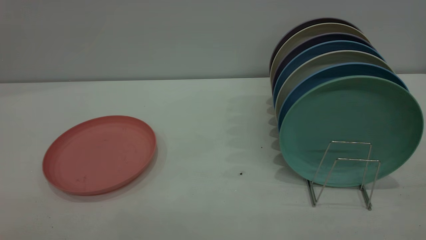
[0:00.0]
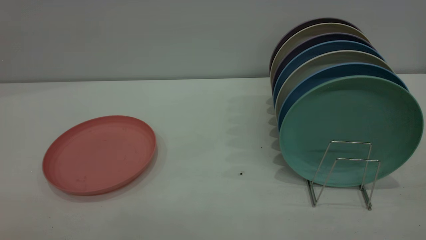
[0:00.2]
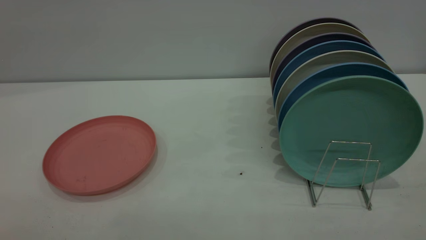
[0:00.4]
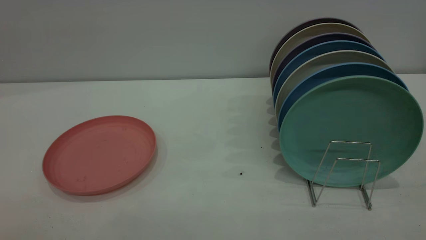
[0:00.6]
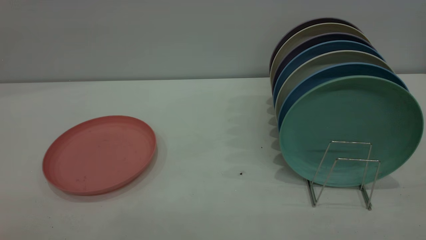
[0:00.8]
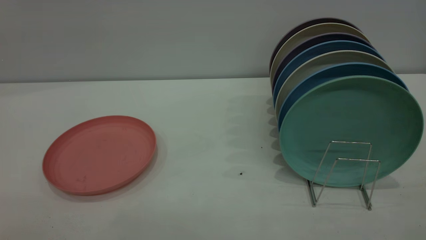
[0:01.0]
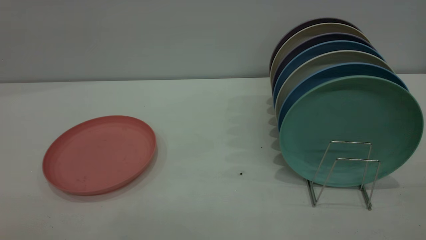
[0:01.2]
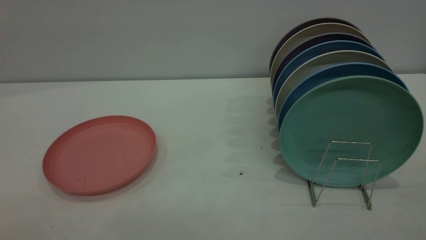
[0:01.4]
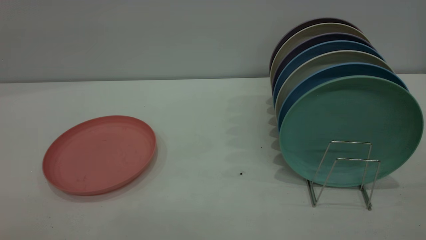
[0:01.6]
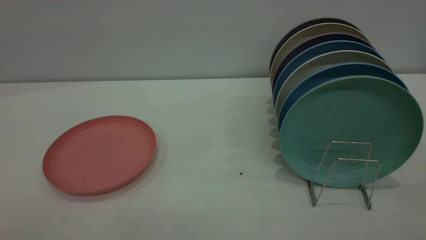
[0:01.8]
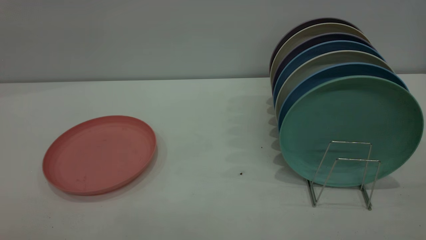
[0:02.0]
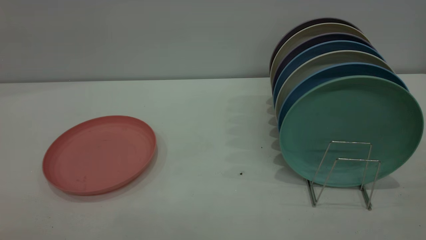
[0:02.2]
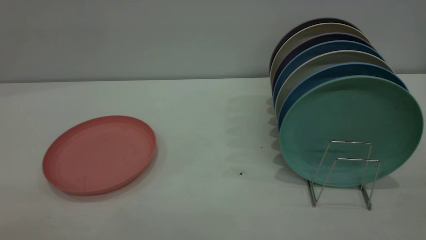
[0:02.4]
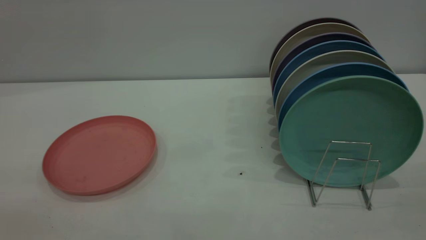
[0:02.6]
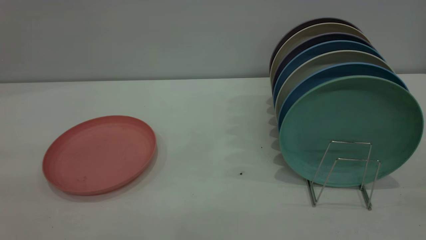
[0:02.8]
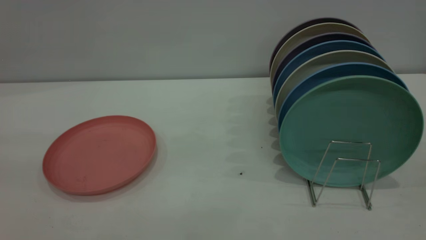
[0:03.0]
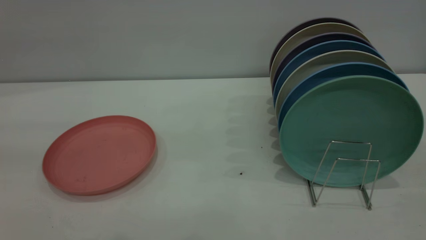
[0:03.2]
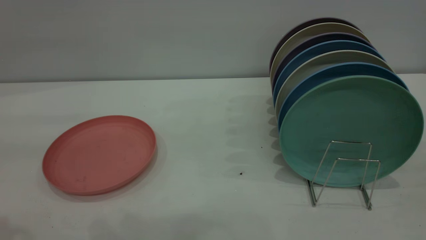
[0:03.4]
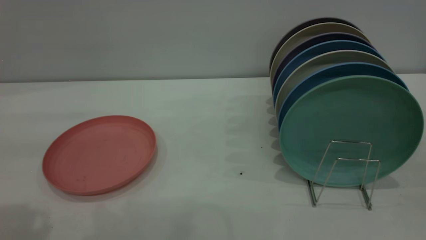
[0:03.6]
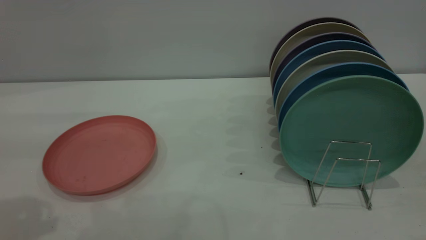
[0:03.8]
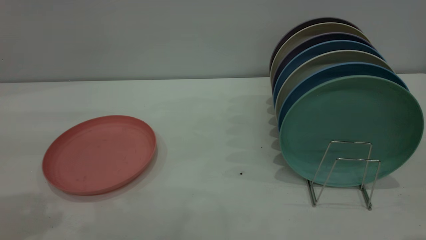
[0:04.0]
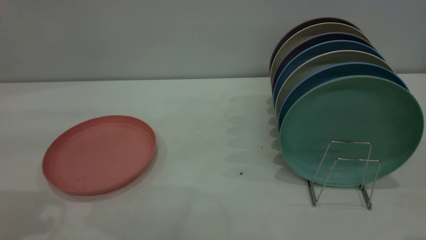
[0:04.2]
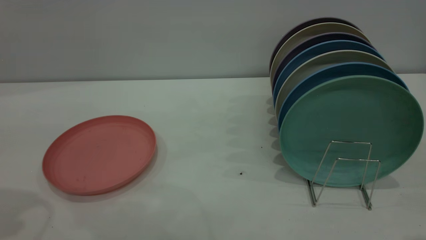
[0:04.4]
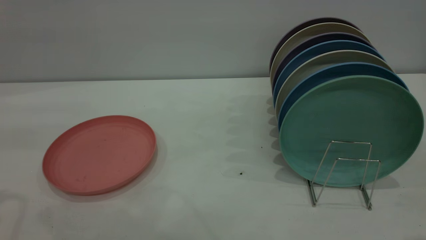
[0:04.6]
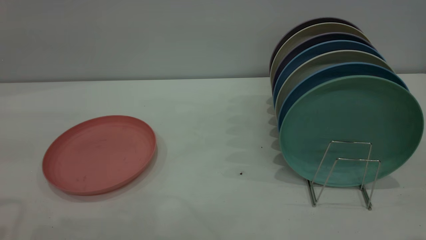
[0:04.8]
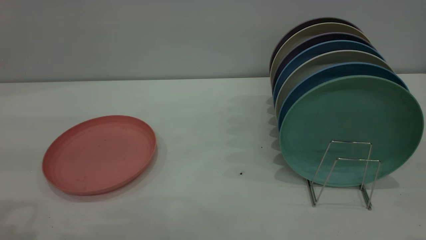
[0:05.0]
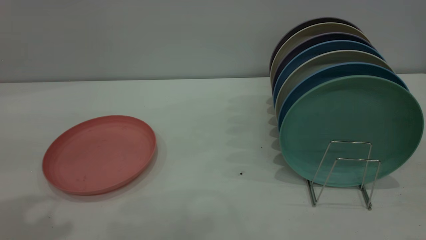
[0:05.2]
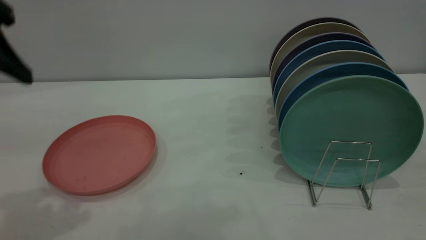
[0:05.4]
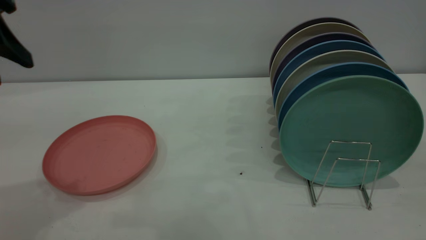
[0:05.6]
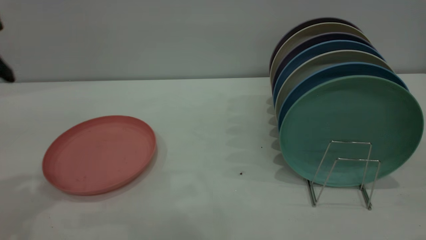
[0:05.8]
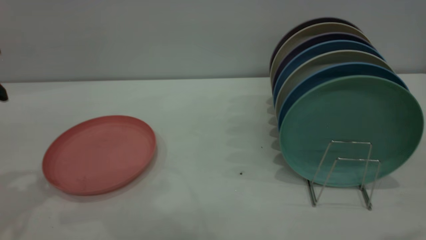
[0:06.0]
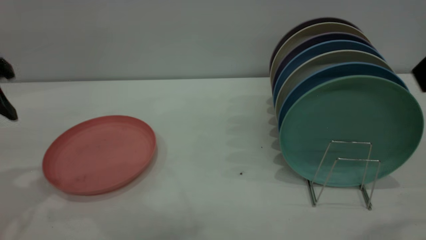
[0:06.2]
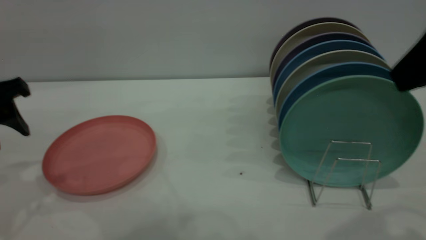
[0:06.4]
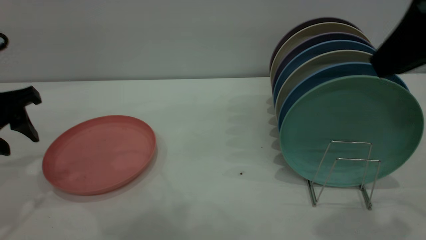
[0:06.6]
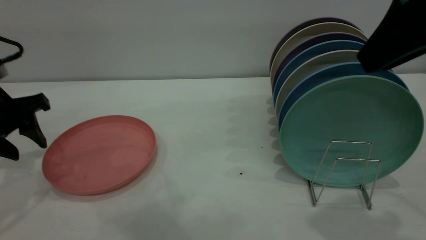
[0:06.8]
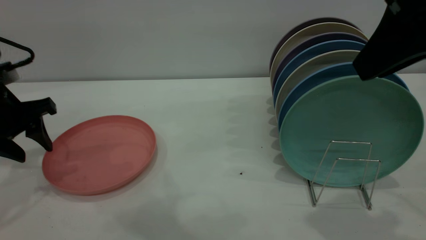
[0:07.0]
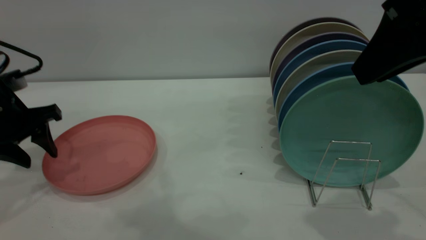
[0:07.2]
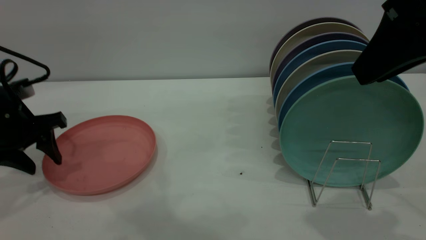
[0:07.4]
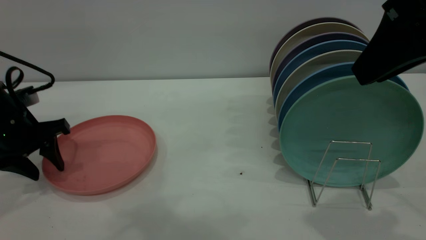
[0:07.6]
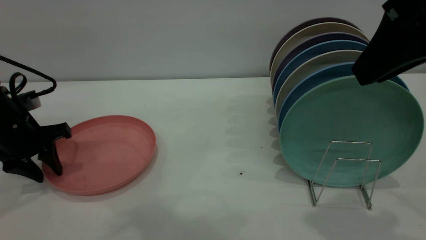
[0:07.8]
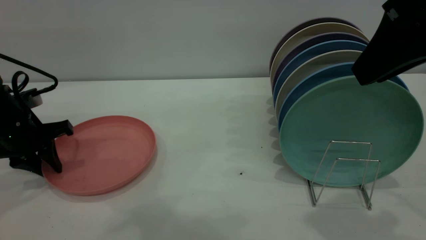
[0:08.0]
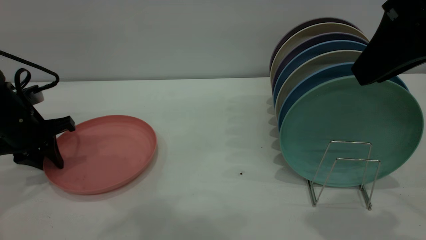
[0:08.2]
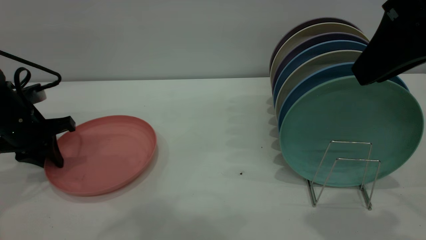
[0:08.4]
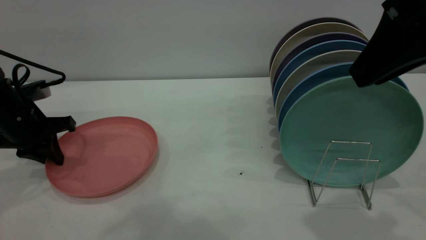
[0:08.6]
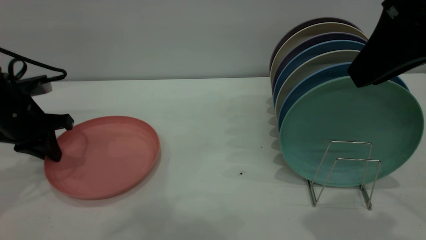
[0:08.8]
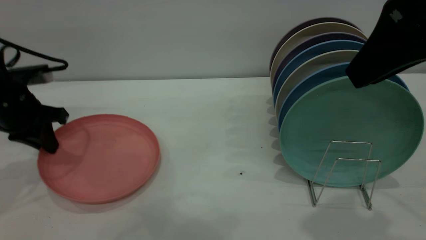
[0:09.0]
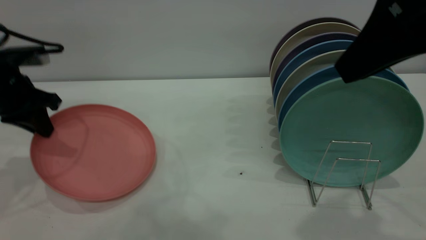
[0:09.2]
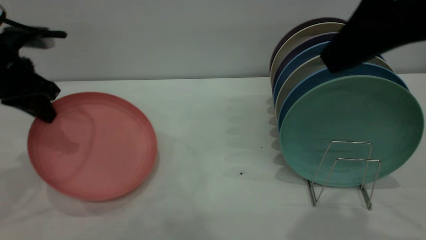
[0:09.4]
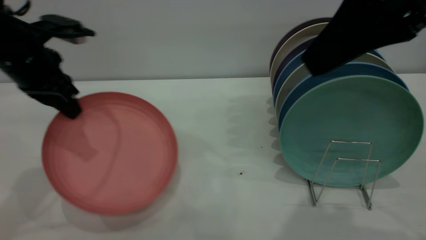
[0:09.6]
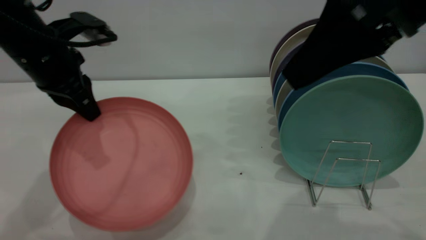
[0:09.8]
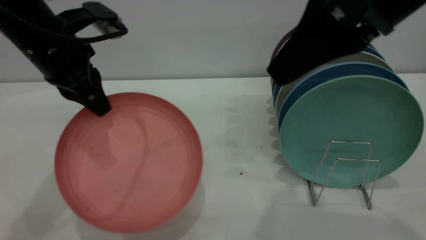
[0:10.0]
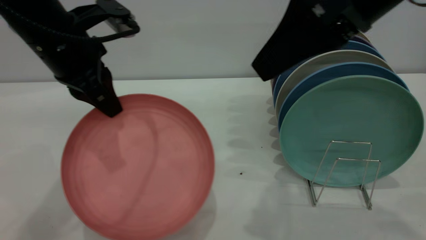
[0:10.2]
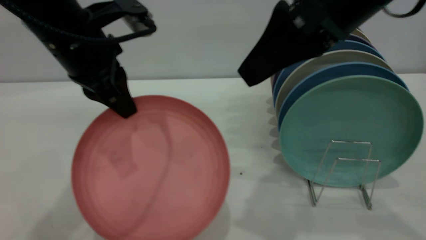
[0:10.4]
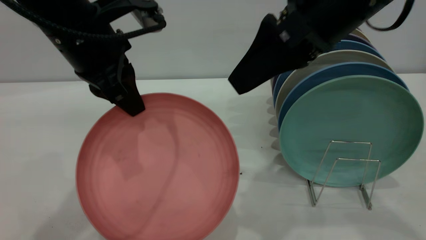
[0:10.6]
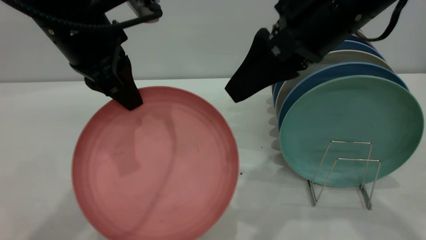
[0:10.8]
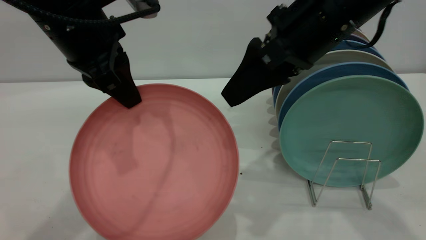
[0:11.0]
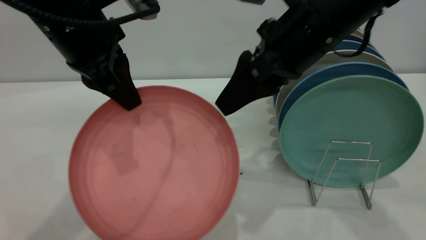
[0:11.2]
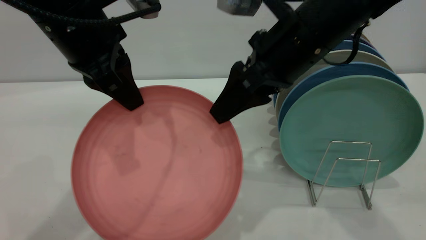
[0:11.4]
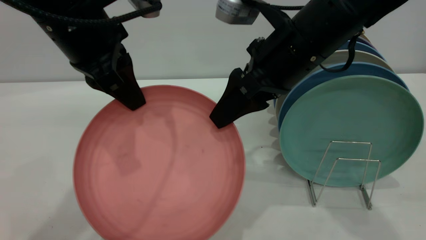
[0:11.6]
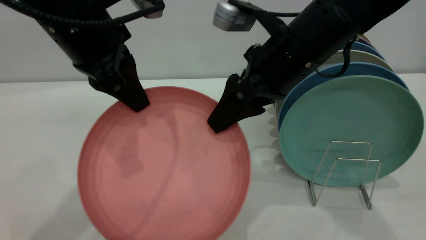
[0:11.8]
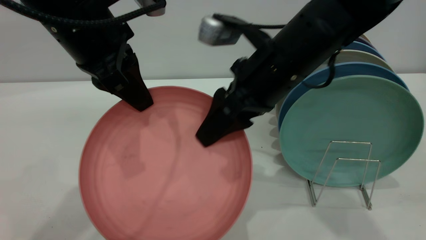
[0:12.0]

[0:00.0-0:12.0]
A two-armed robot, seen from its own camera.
Task of the whole recording: put the plate on the plate rack.
Step, 0.0 to 9.4 s: Pick up the plate with the left gripper.
0.0 to 1.6 s: The two grippers keep their place.
6.0 to 7.6 s: The left gripper heads downward and forward, covering some 15 cm, while the right gripper is displaced forward by some 5 cm.
7.6 to 9.0 s: The left gripper closes.
9.0 to 10.4 s: The right gripper shifts roughly 10 cm to the left and forward, and opens; the left gripper shifts about 20 cm to the right and upward.
10.4 to 12.0 s: The right gripper is displaced downward and to the left by some 10 cm.

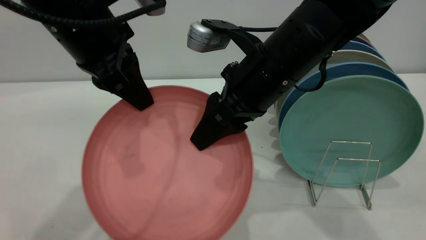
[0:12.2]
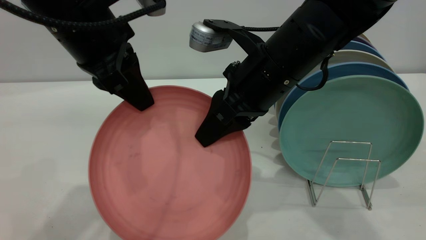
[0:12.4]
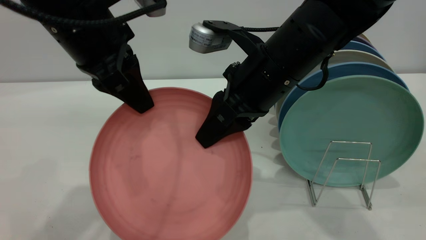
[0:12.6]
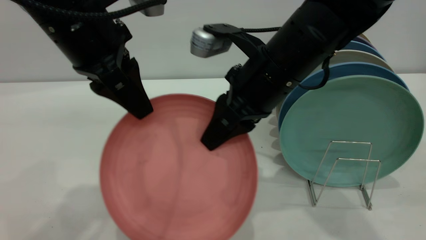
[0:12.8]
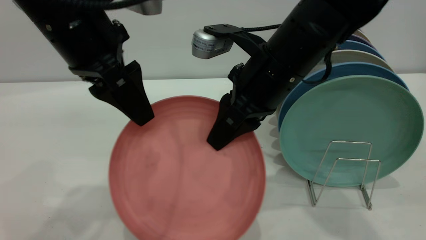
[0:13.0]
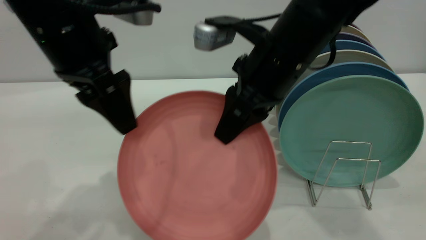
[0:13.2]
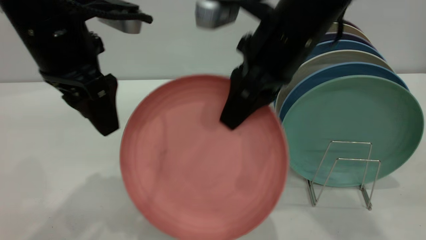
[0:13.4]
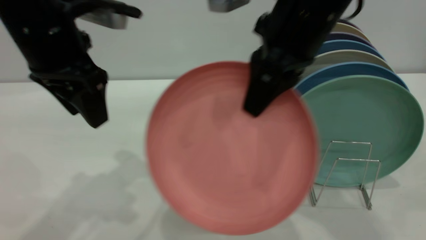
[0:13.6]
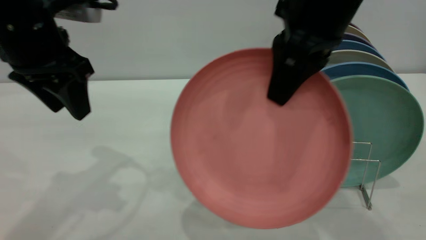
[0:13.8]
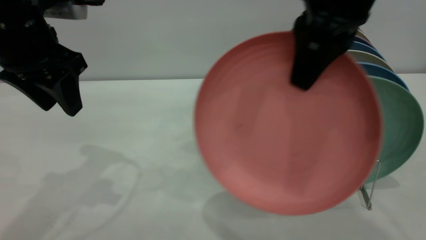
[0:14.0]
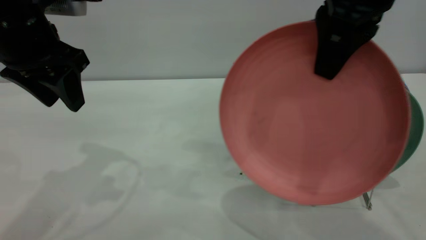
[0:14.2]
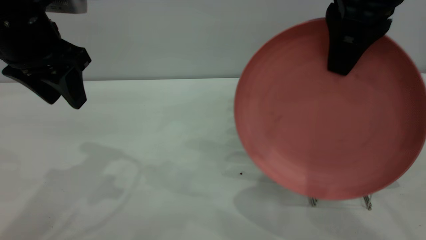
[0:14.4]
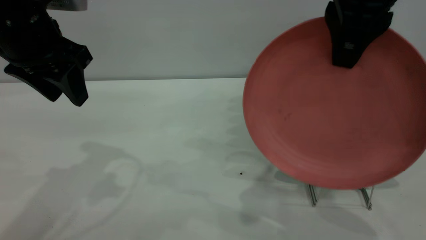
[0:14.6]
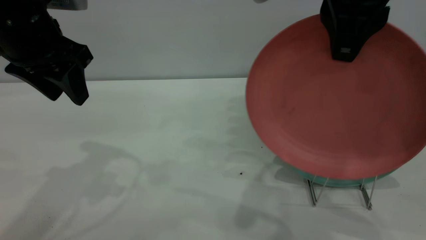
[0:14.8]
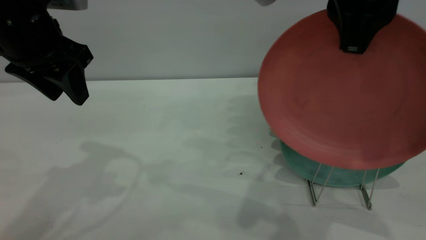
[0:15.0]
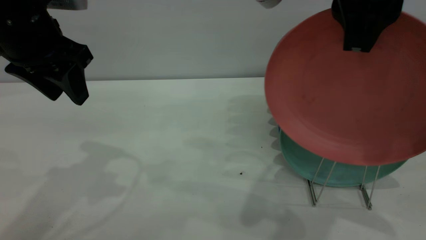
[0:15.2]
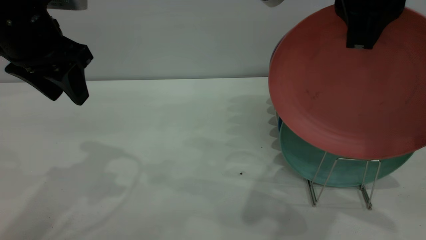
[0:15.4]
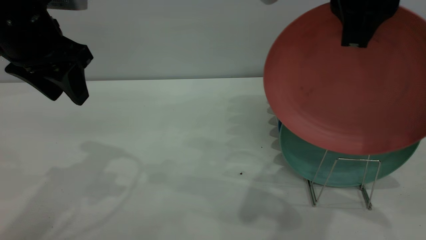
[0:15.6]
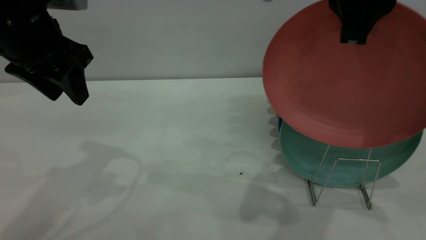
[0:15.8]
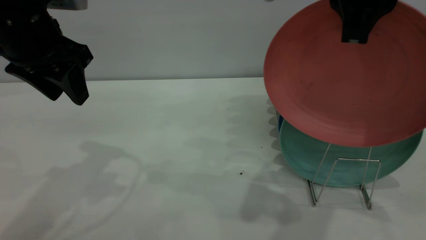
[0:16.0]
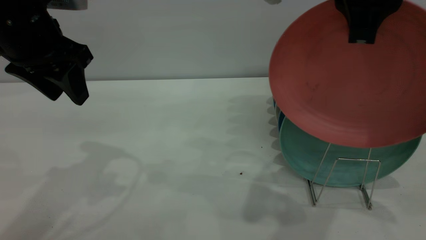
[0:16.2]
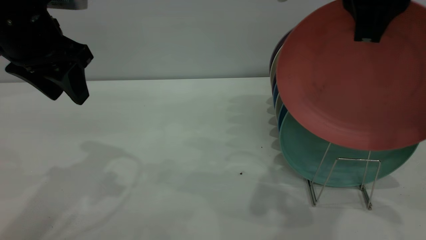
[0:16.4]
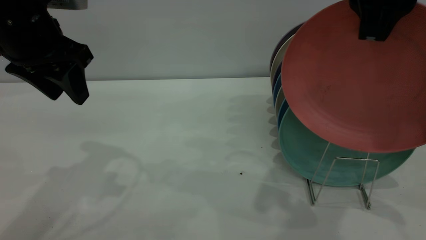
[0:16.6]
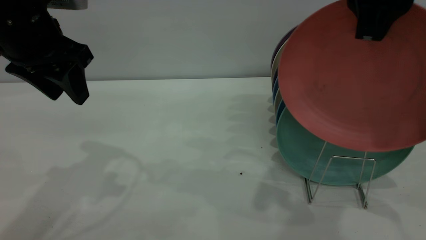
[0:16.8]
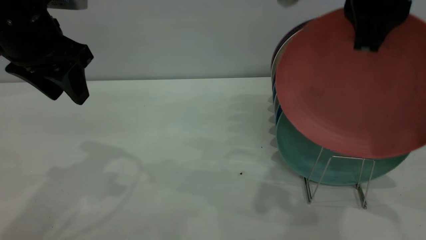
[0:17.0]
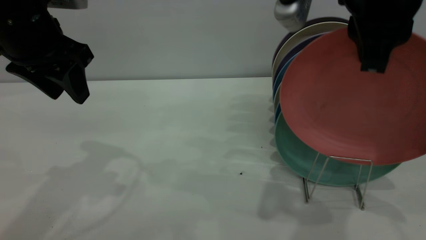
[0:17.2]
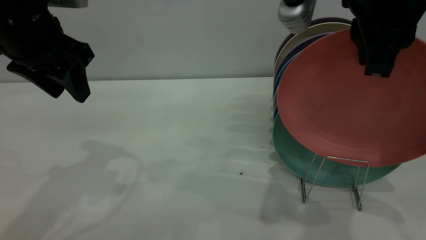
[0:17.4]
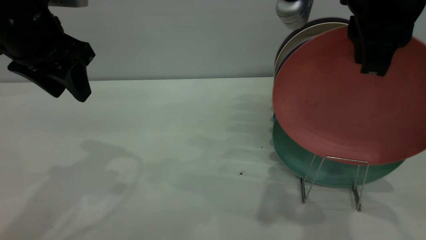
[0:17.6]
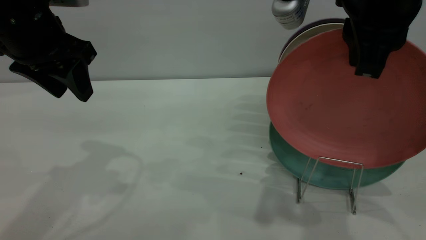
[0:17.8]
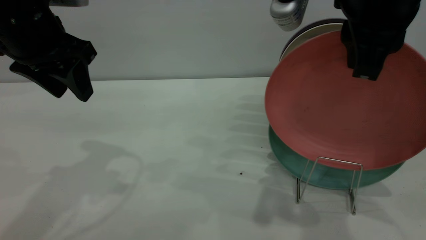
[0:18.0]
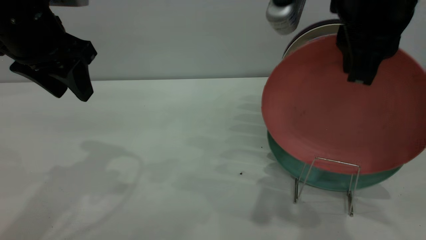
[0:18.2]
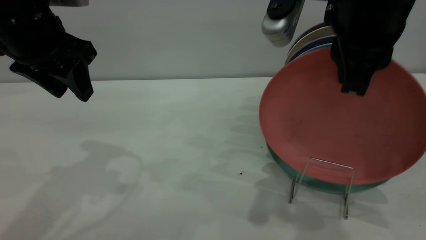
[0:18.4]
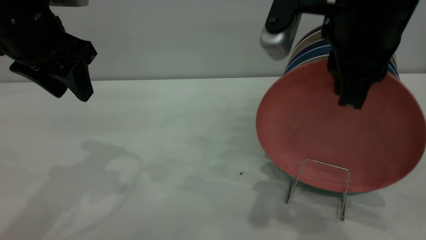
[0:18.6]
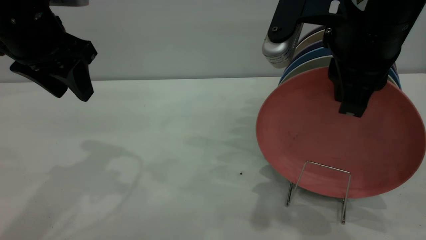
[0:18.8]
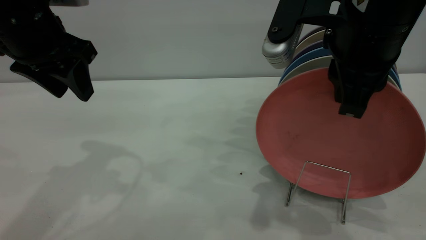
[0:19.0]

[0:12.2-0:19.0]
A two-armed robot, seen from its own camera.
Task of the whole recording: put the plate on the plate rack.
12.2 to 13.6 s: The left gripper opens its fingers. Meanwhile the right gripper moves upward, roughly 10 cm.
13.6 to 15.0 s: The right gripper heads upward, covering about 5 cm.
15.0 to 17.6 s: There are only small adjustments of the grippers.
17.6 to 19.0 s: The grippers stay close to where they were, moving slightly.
